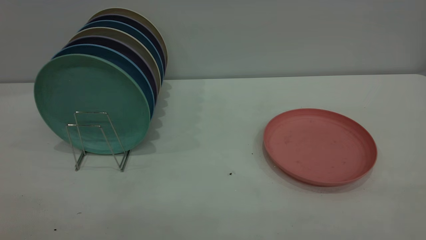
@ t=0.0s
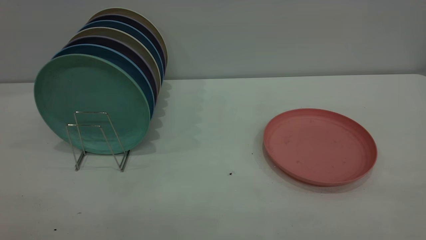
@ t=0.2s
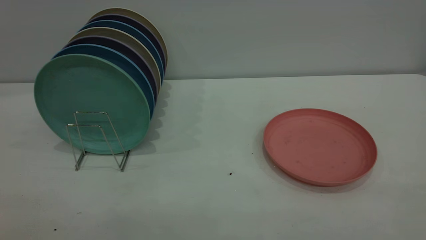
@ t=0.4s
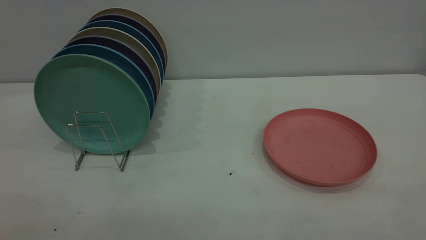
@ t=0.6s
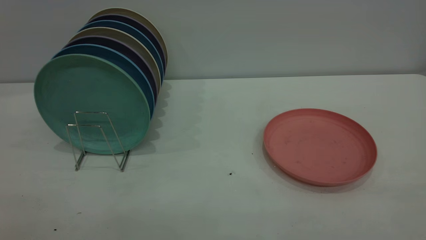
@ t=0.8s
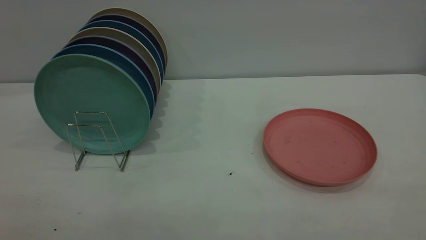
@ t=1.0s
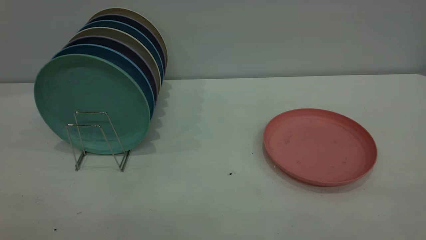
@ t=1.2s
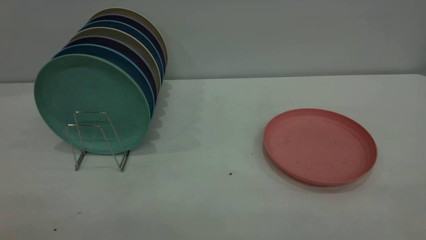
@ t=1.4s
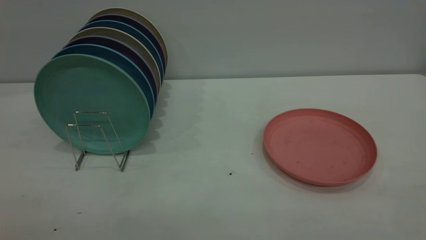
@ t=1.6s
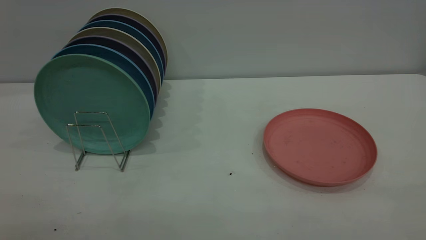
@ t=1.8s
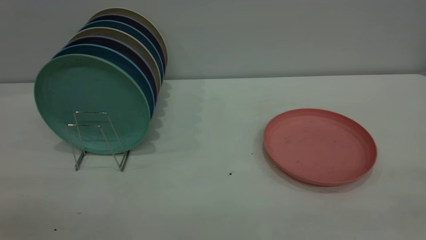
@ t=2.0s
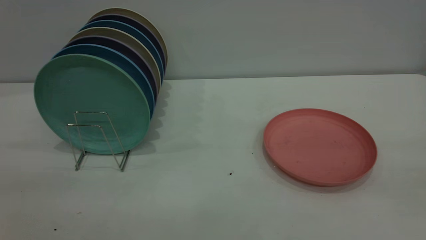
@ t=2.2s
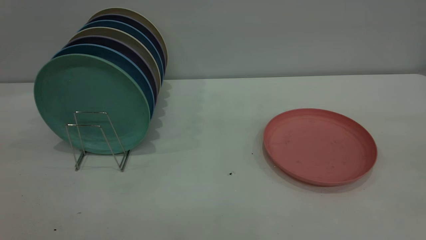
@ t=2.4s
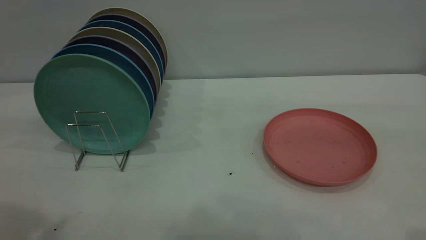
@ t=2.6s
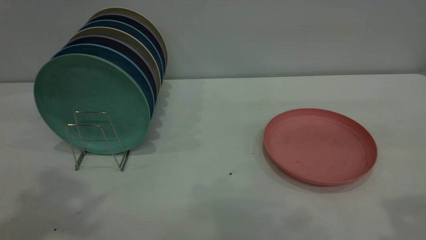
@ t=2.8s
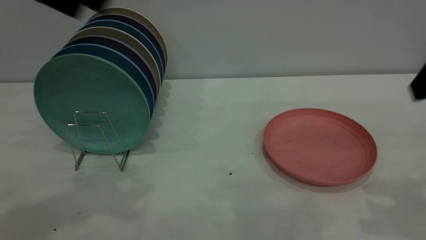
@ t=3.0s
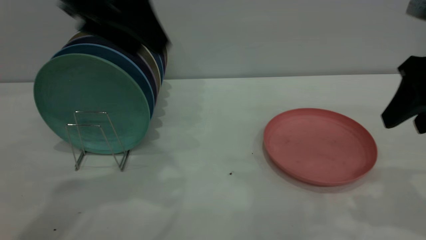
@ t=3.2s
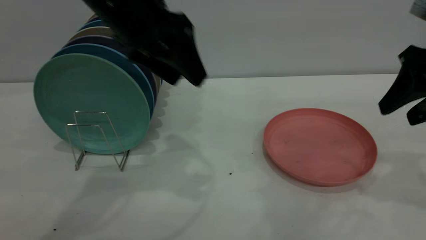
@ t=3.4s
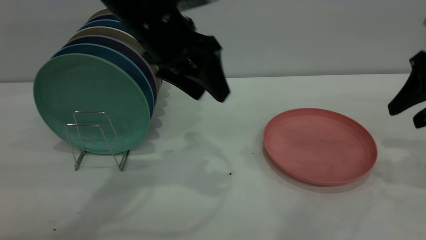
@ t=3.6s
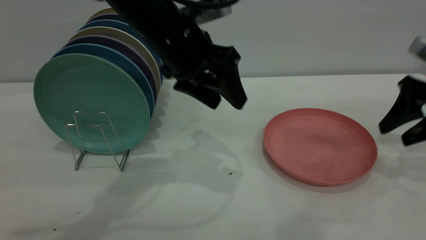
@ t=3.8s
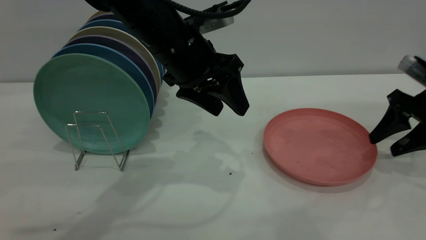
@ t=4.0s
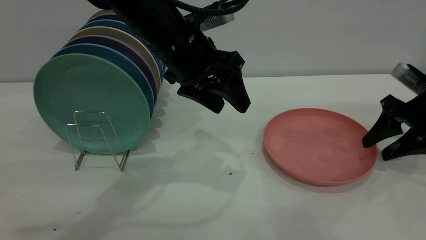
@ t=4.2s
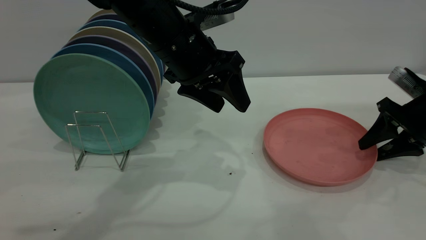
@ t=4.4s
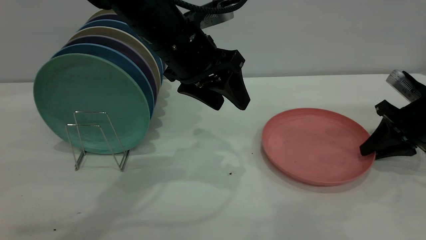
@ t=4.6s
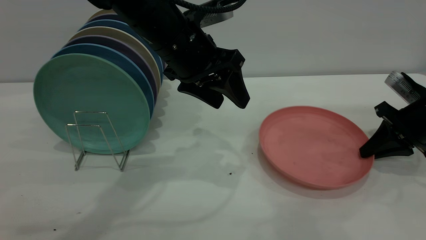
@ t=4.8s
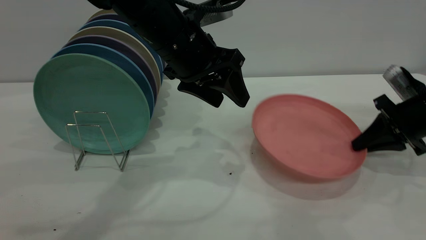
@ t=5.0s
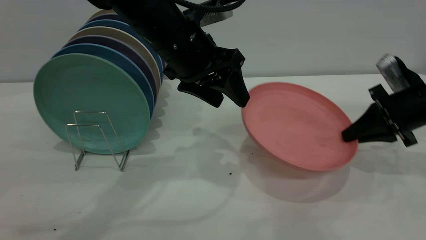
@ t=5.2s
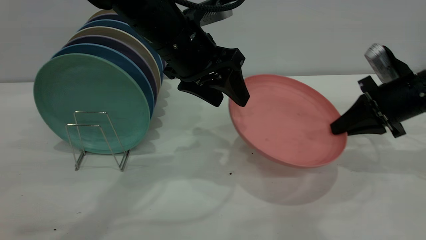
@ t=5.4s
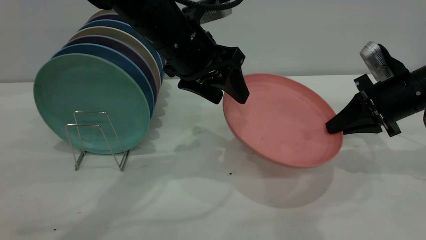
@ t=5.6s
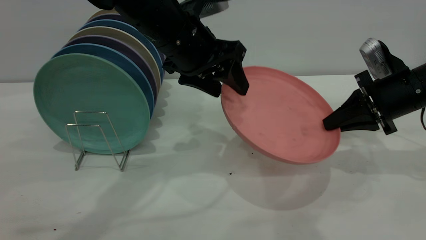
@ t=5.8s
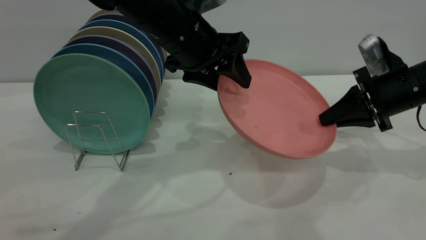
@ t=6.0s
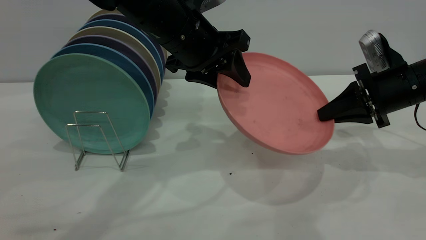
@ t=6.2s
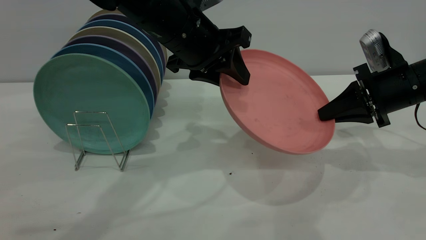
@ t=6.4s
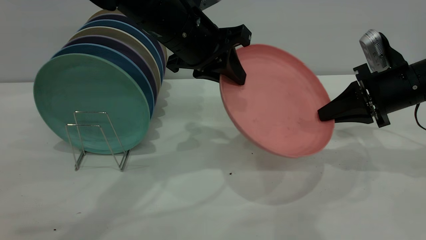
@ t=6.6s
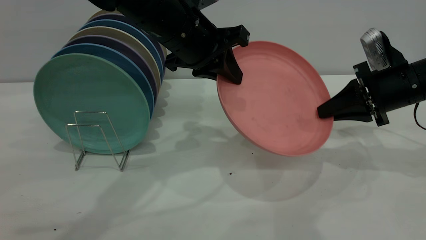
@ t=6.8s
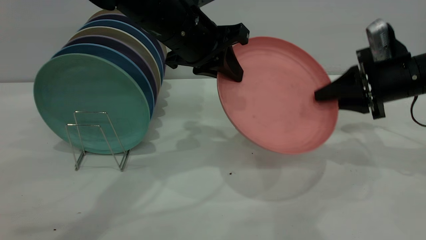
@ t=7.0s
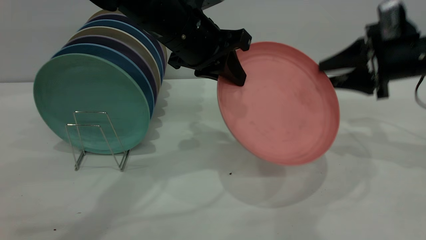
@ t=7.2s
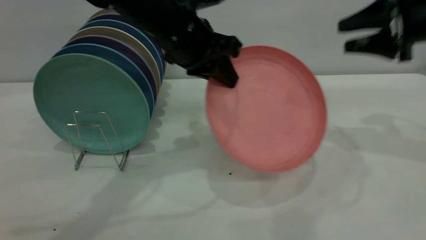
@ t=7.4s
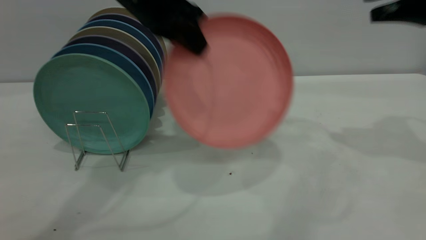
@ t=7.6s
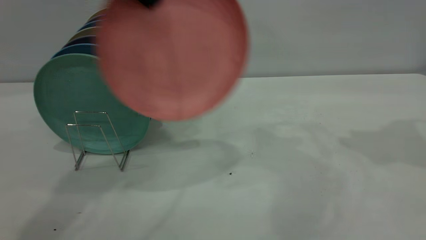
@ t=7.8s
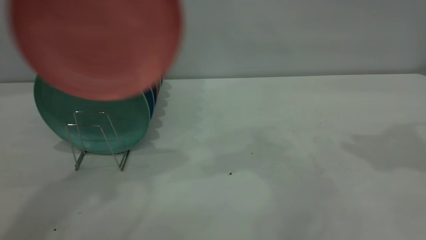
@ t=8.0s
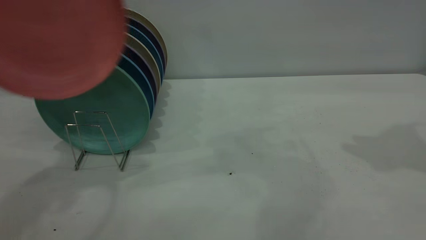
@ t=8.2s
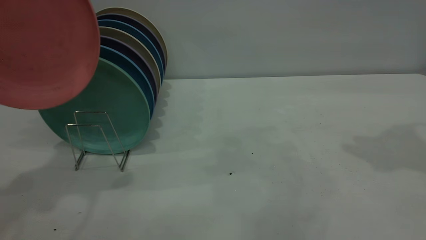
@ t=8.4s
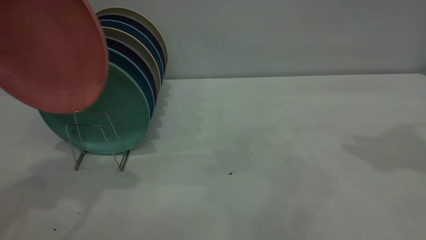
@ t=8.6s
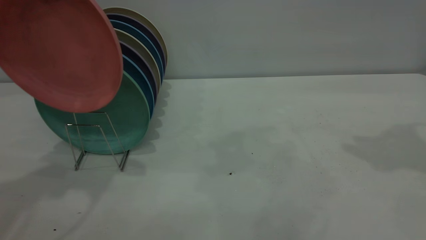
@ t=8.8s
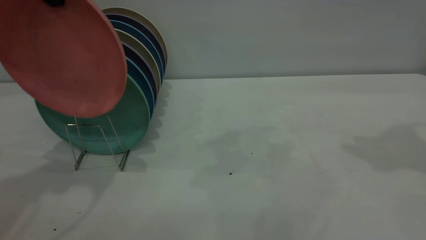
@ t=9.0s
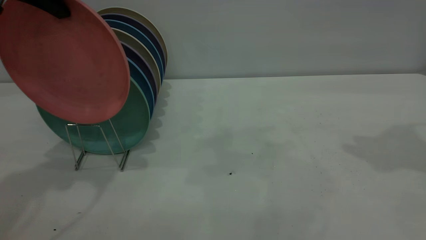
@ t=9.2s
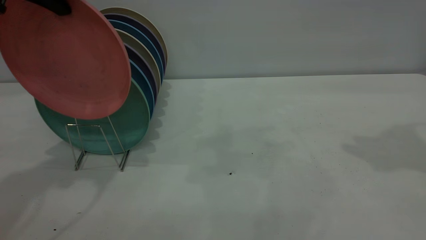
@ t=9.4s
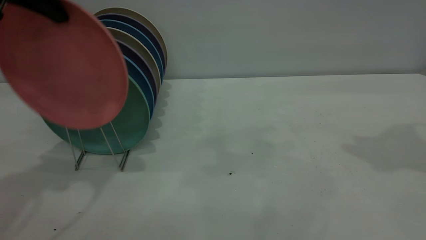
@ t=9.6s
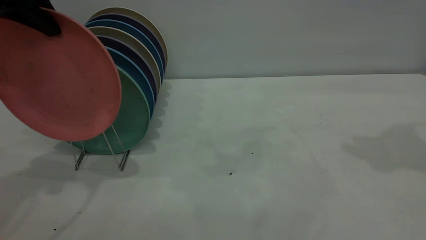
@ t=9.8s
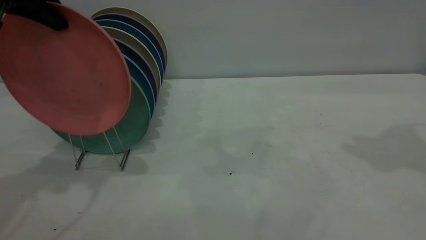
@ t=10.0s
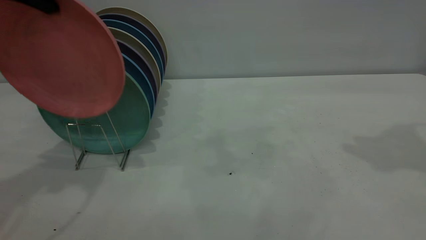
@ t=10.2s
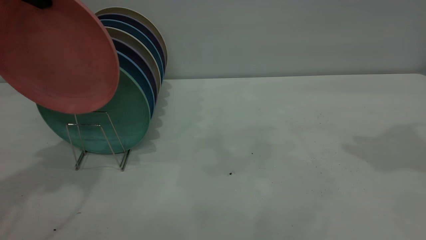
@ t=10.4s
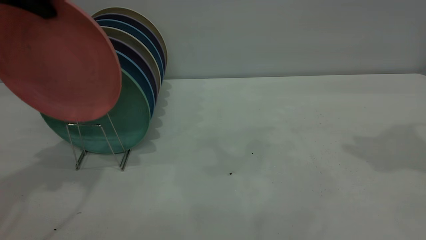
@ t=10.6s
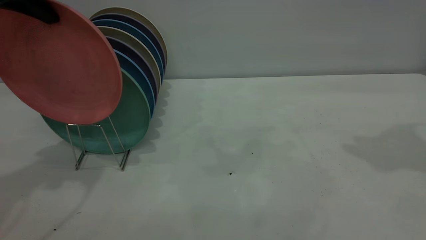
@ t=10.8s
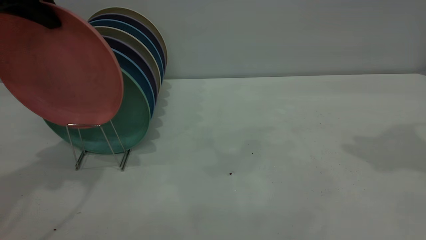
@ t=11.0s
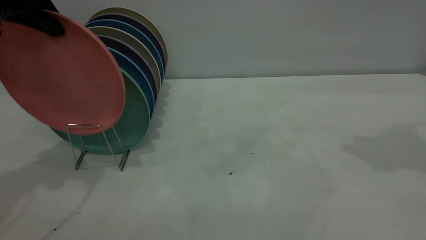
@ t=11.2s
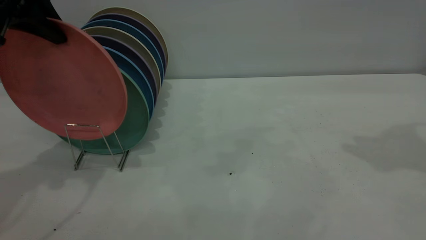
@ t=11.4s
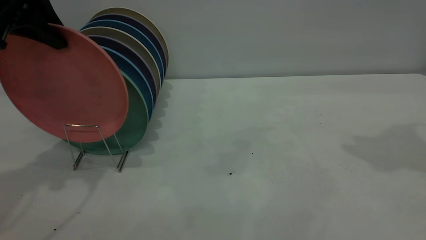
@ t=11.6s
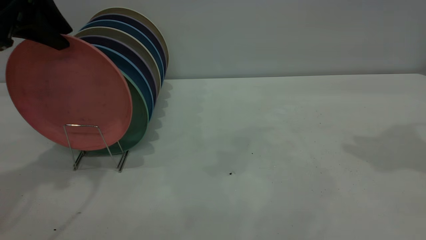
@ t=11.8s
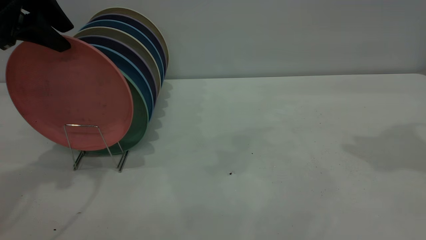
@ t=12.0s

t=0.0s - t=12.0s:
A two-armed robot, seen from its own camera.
Task of the whole recording: the right gripper grasp the pink plate, the right gripper pass the pink plate to the left gripper, and the left gripper place the pink plate on the plate rack.
Step, t=0.0s - t=5.0s: Pick up the plate with the right gripper.
Step, t=5.2s - t=7.2s: Pass the plate from the right gripper to the left gripper.
t=0.0s - t=1.6s: The two grippers keep their place.
t=1.6s - t=3.0s: The left gripper is displaced forward by some 35 cm.
t=3.0s - t=4.4s: The right gripper travels downward and forward by about 25 cm, while the left gripper goes some 20 cm downward, to the right and forward.
t=4.4s - t=6.0s: The right gripper heads to the left, covering roughly 5 cm, and closes.
t=6.0s - t=7.6s: The right gripper goes some 15 cm upward, and opens up, while the left gripper shifts some 10 cm upward and to the left, and closes up.
t=7.6s - t=9.0s: The left gripper is displaced to the left and upward by roughly 15 cm; the right gripper is displaced upward by some 5 cm.
t=9.0s - t=10.4s: The grippers move only a little.
t=10.4s - t=12.0s: The left gripper ends up some 5 cm from where it was, and opens its fingers.

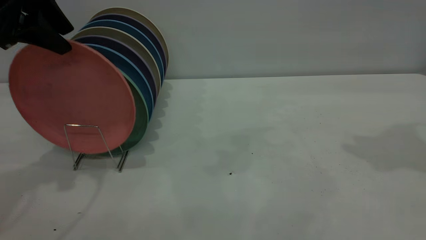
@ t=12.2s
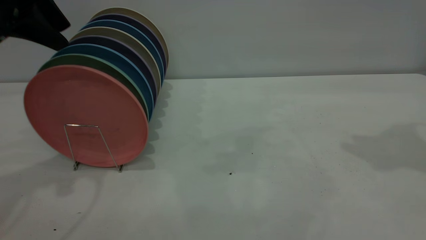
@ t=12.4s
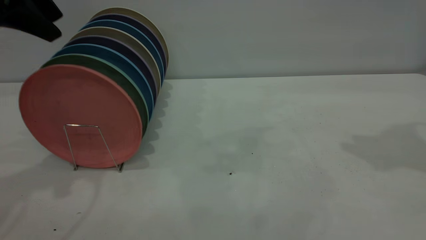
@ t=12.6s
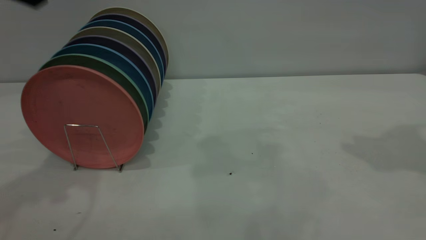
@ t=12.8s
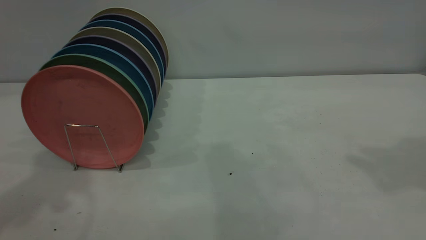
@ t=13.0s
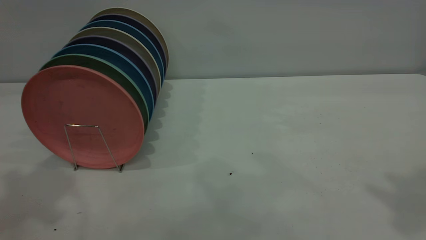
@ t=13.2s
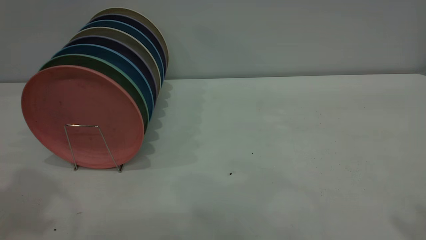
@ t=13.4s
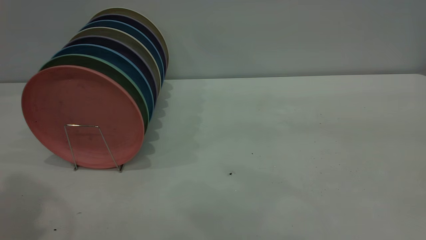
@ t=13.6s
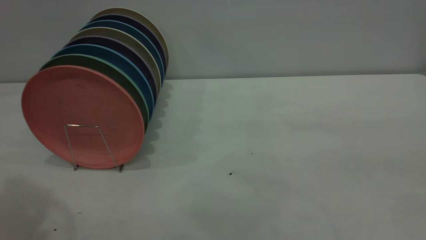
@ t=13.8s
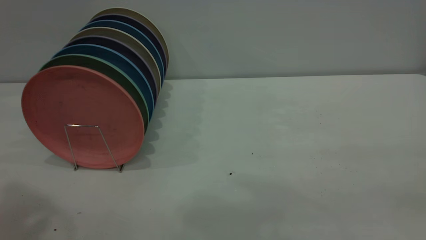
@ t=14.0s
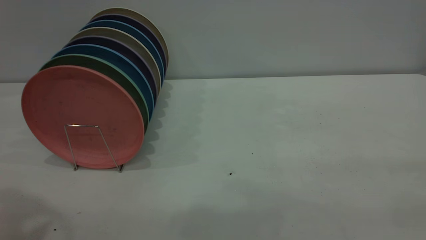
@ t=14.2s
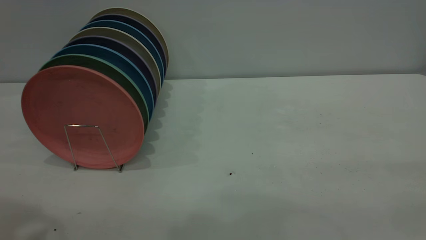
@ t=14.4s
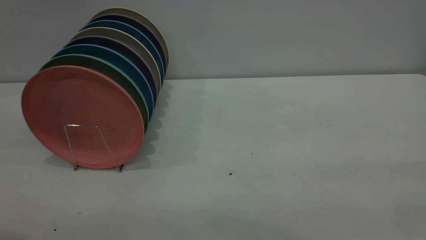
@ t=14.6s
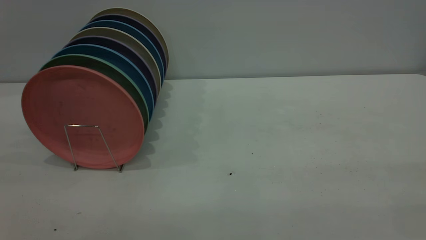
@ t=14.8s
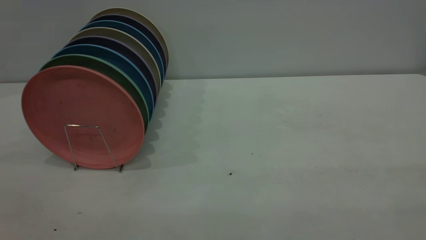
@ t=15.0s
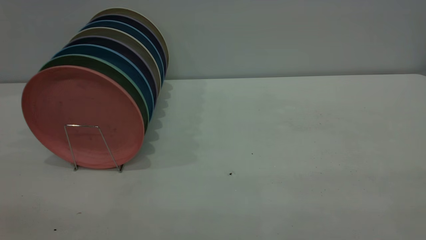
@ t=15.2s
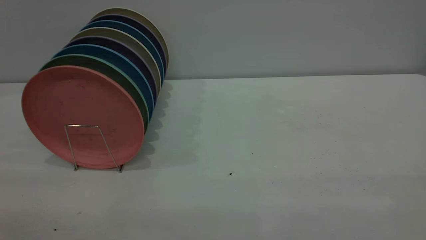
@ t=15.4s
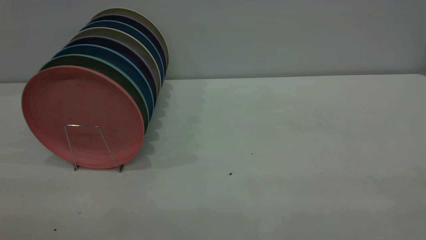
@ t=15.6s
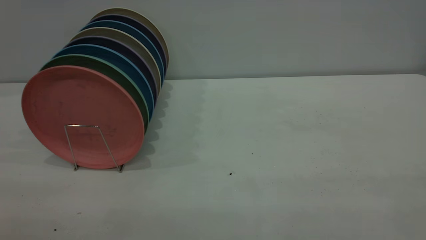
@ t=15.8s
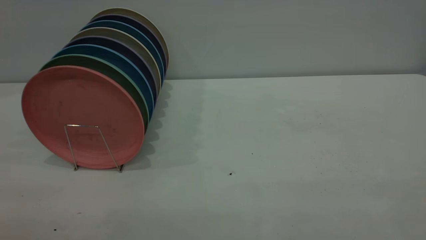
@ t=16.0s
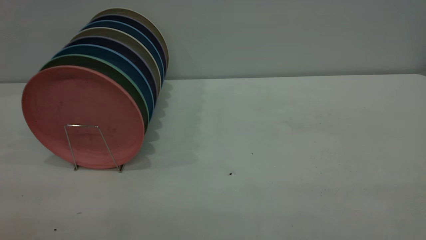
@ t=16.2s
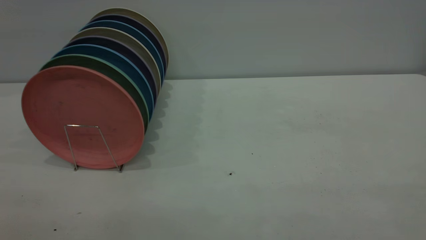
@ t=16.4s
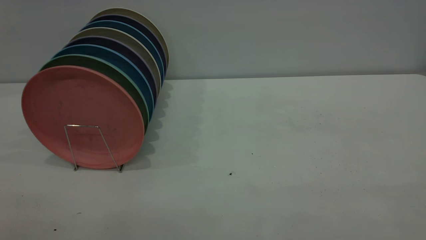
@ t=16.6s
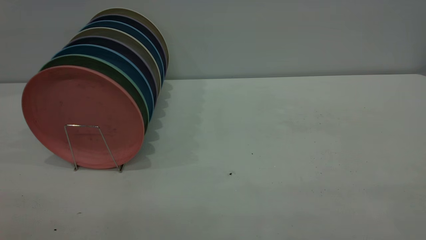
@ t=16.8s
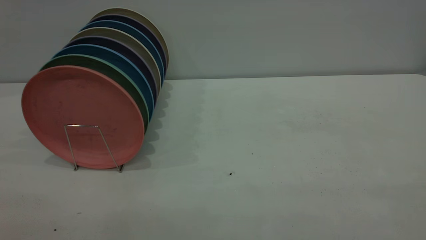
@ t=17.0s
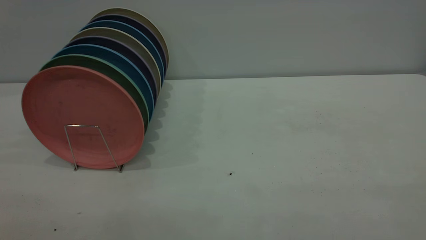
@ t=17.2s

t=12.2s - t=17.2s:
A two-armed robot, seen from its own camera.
Task of the whole recording: the right gripper grasp the pink plate, the right gripper pass the pink plate to the left gripper, and the left gripper place the pink plate on the plate rack.
t=12.2s - t=13.8s: The left gripper travels upward and backward by roughly 20 cm.
